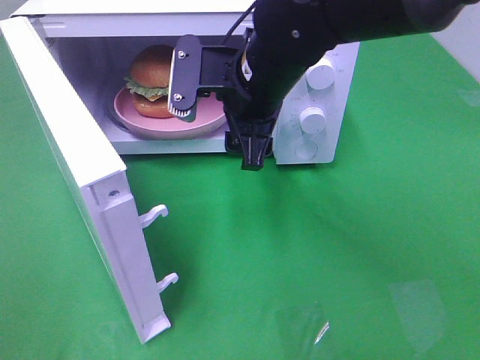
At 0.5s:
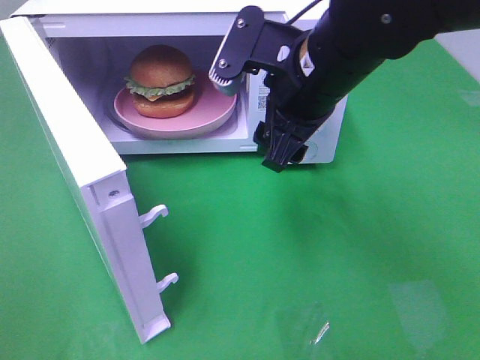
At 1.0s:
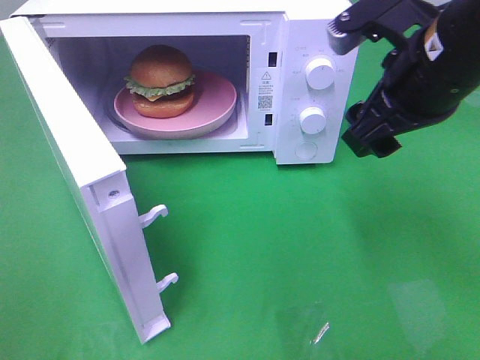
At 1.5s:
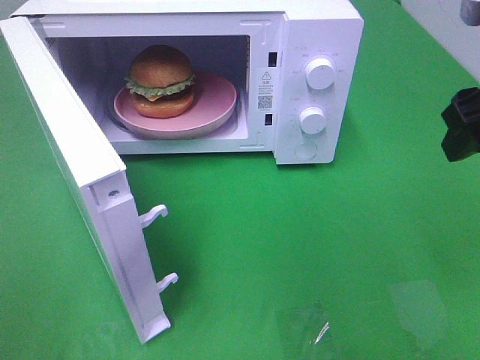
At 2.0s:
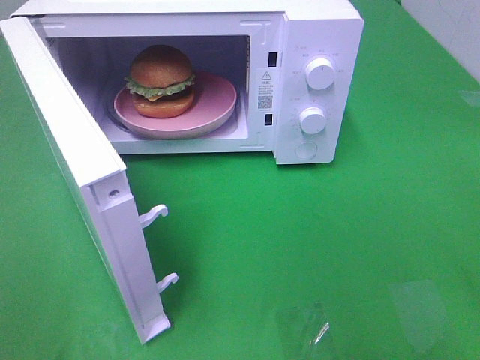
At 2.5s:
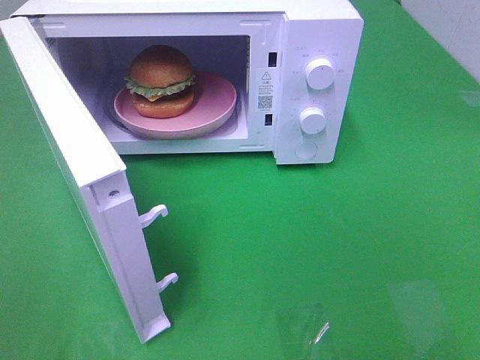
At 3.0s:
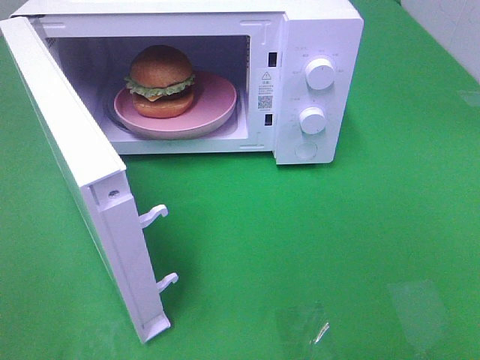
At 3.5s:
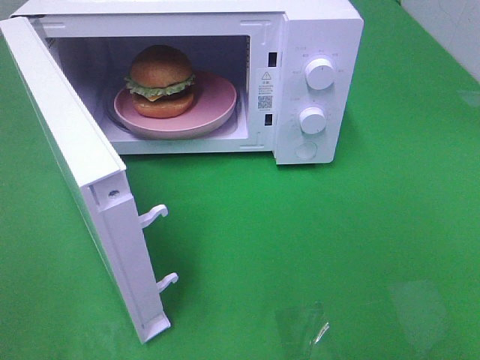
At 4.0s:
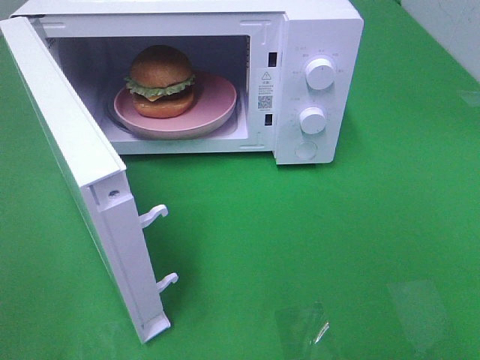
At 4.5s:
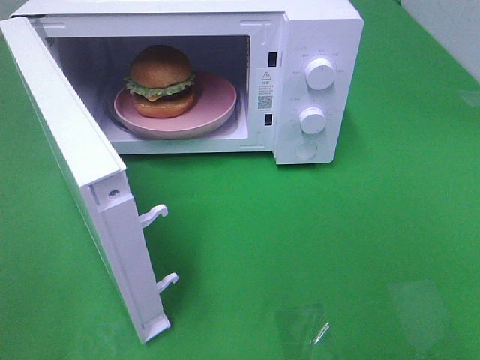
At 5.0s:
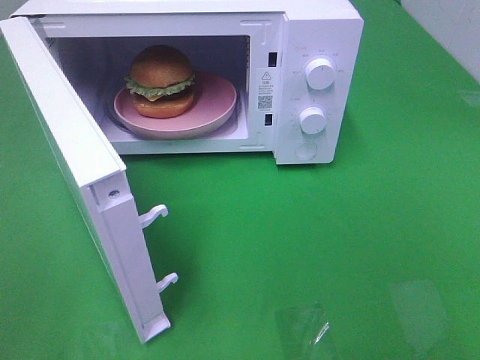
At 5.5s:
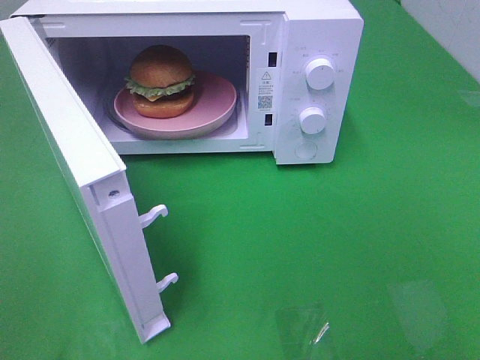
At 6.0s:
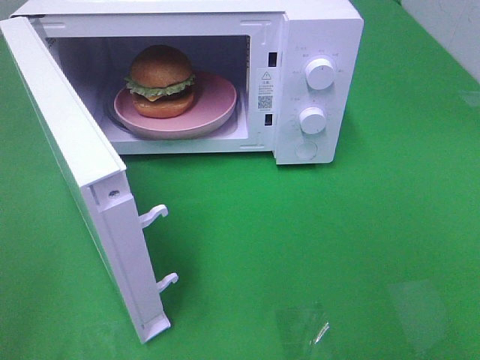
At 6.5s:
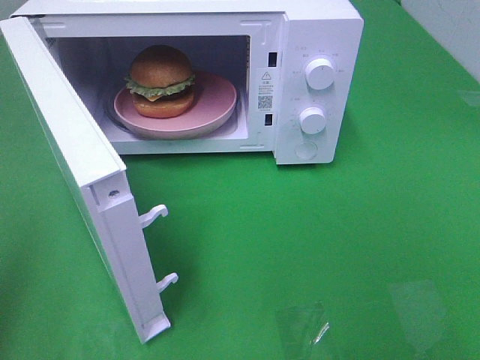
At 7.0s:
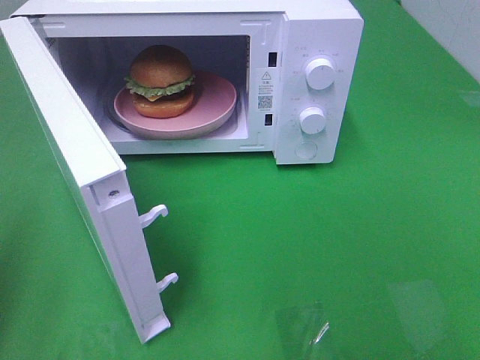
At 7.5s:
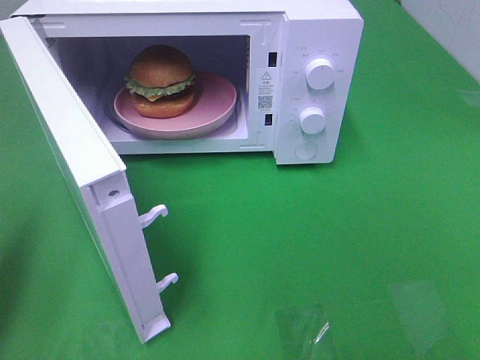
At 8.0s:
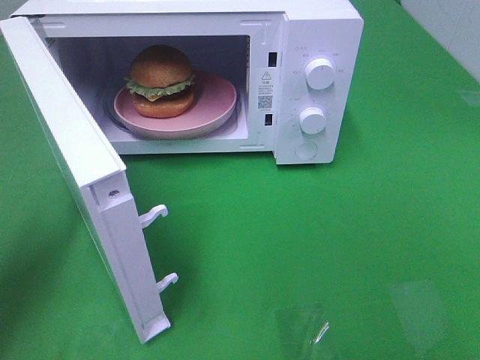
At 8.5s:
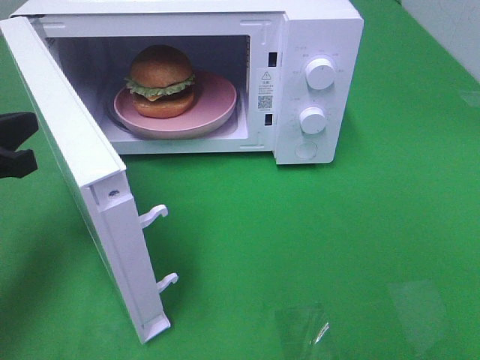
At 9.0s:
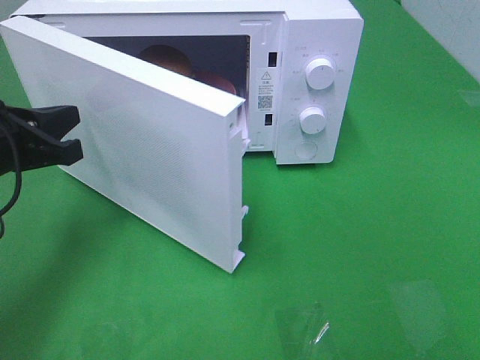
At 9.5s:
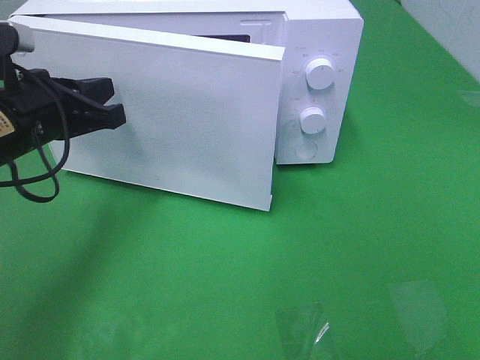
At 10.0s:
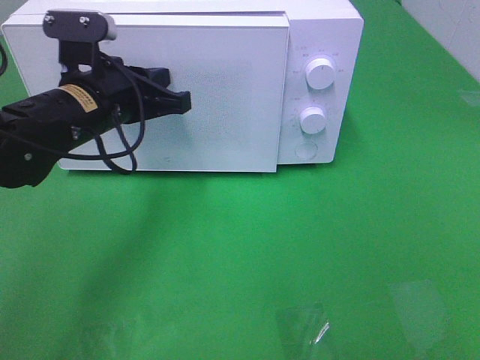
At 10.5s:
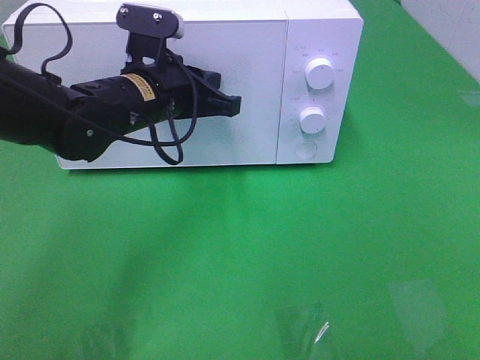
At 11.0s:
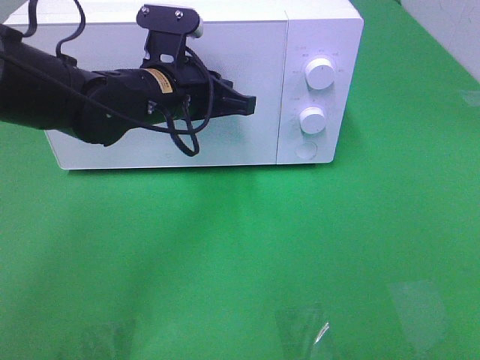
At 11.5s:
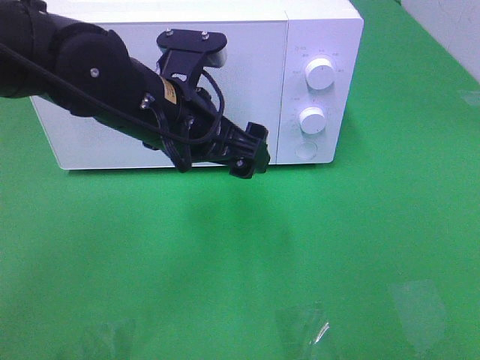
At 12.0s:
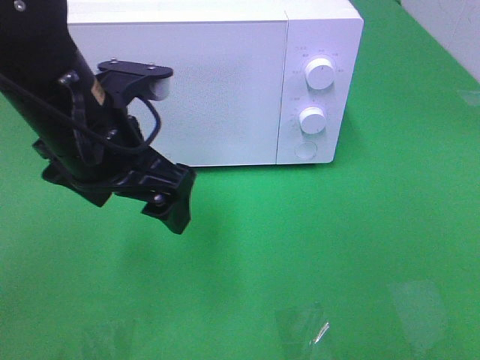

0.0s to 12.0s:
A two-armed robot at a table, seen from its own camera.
Task of the whole recording: Heat the burger.
Step, 0.0s to 11.0s: Left hand: close the microwave door.
0.0s to 2.0s: The right gripper moves to the right and backward, roughly 30 cm.
6.0s to 8.0s: The left gripper goes about 20 cm forward and downward, and closes.
8.0s to 10.0s: The left gripper shifts about 20 cm to the right and forward.
10.0s to 12.0s: The left gripper shifts approximately 10 cm backward, and opens.

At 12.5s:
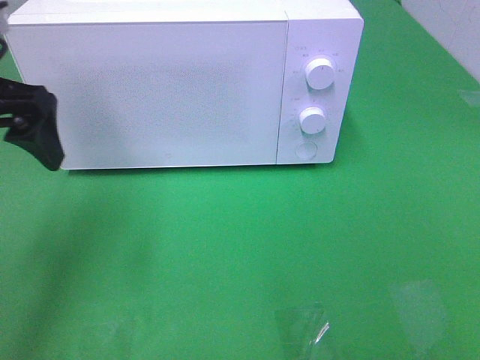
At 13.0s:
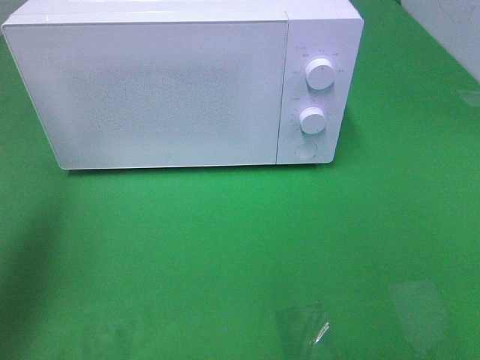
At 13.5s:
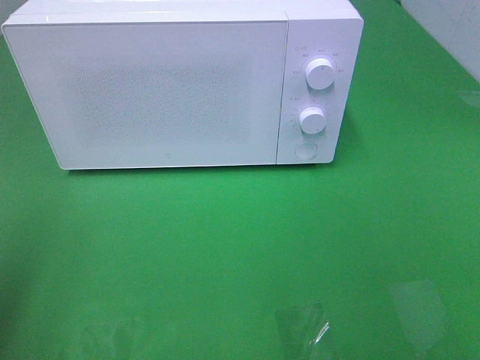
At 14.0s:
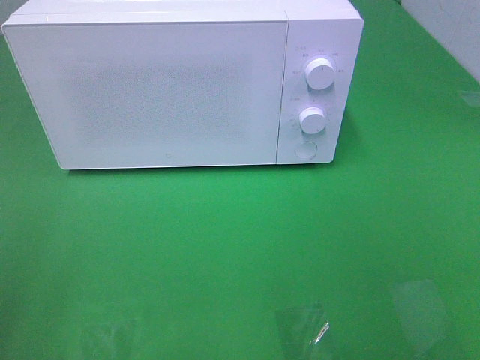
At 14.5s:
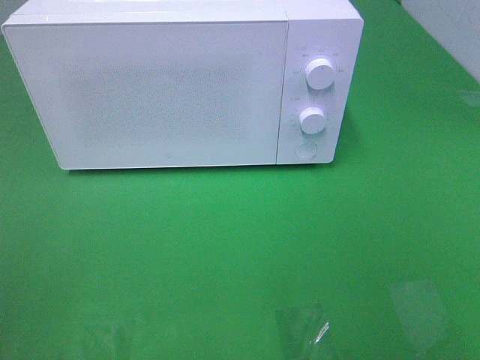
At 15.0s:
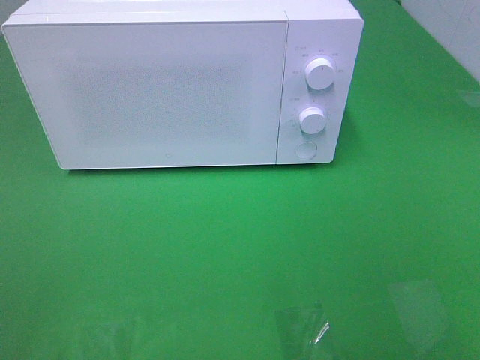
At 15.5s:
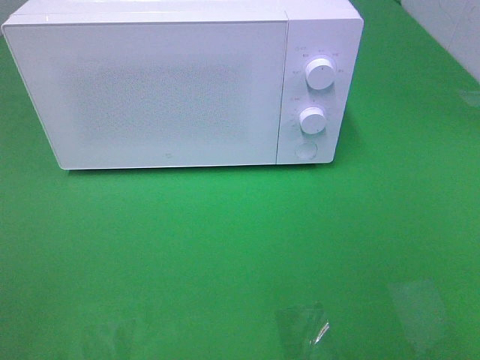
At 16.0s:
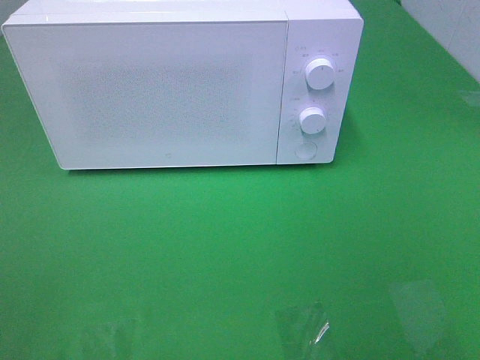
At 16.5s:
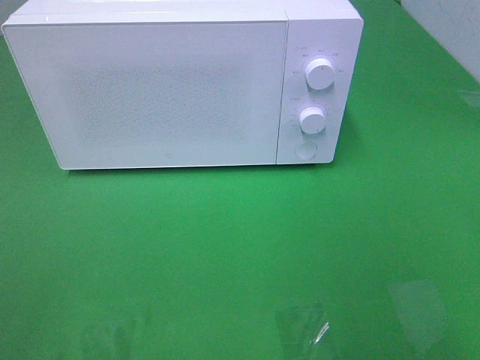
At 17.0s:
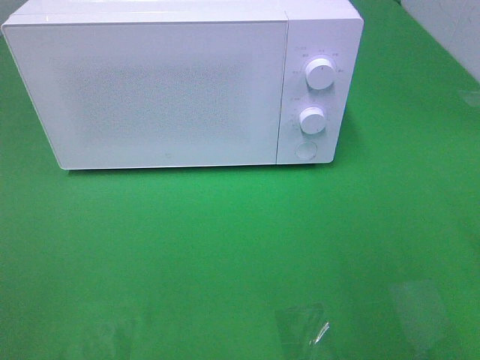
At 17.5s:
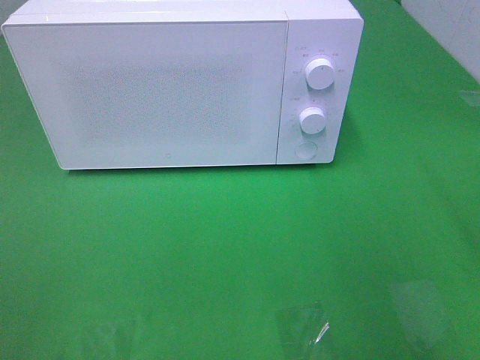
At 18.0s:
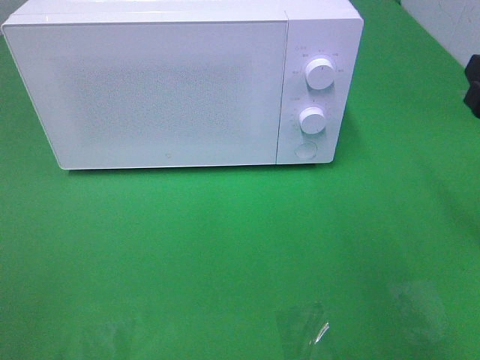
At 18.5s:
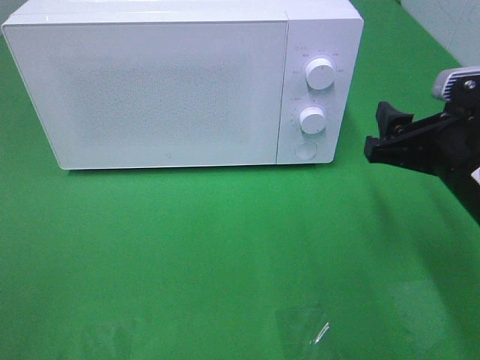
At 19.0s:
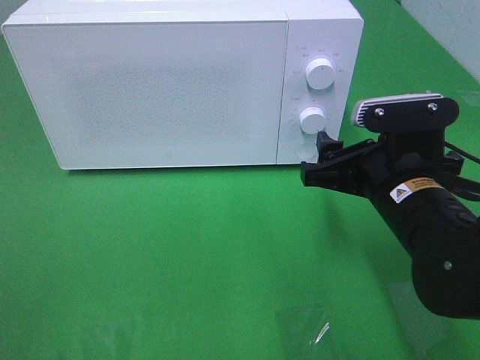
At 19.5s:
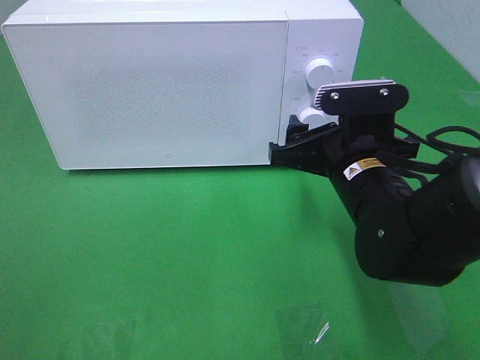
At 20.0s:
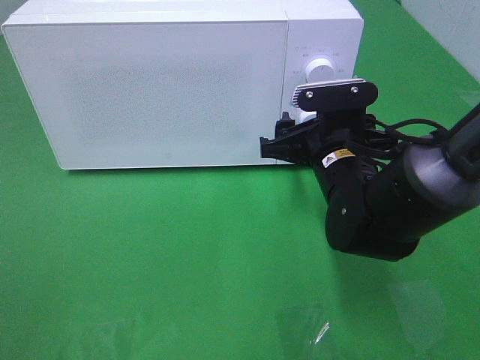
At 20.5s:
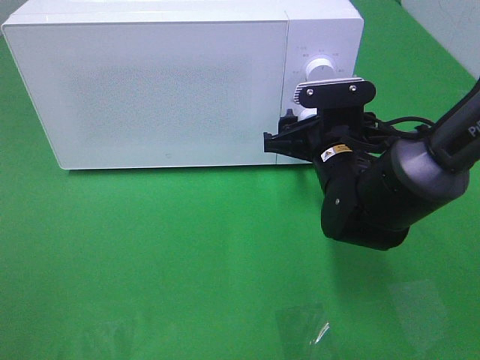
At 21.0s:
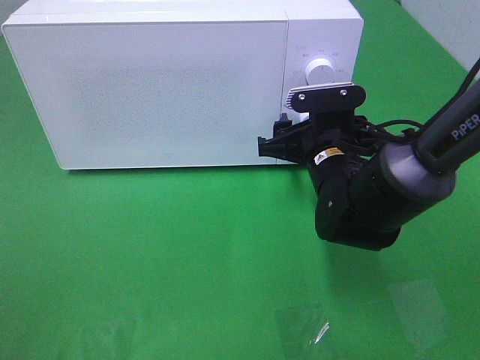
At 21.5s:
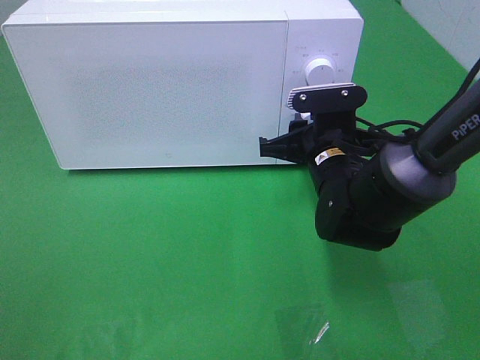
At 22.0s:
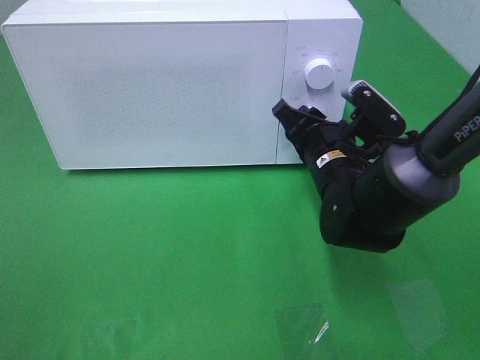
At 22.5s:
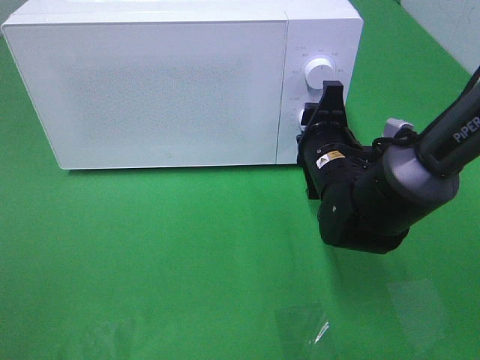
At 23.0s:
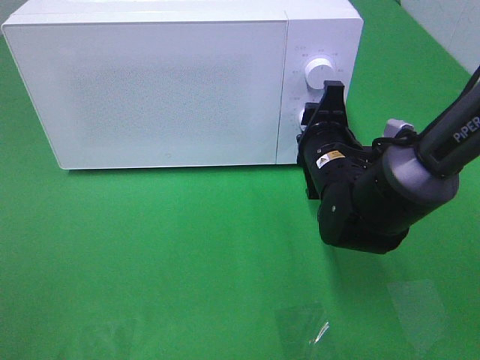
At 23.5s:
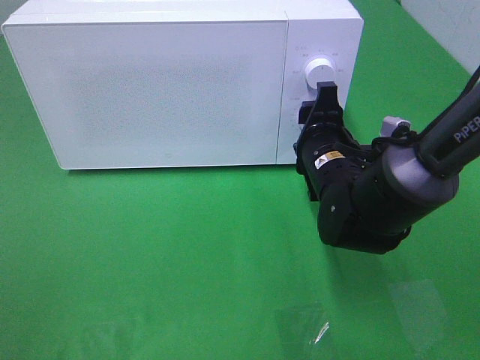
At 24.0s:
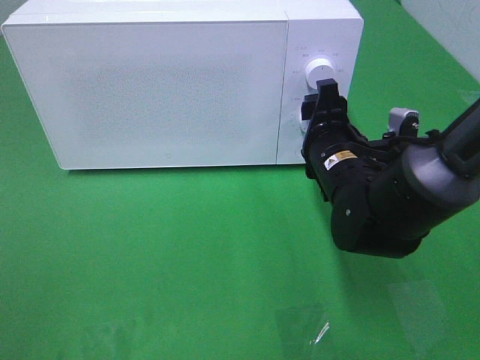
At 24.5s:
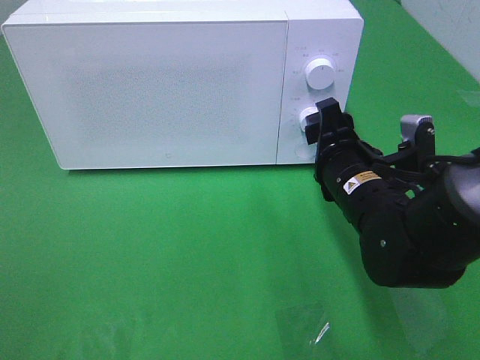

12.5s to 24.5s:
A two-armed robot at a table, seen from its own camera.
Task of the whole recording: Heat the burger.
Step, 12.5s to 23.0s: Right hand: twist timer button.
12.5s to 14.5s: The left gripper goes some 25 cm backward.
16.5s to 18.5s: The right gripper travels forward, downward and to the left by about 20 cm.
18.5s to 20.5s: The right gripper moves forward, to the left and downward, some 15 cm.
20.5s to 22.5s: The right gripper closes its fingers.
22.5s to 24.5s: The right gripper shifts about 5 cm backward.

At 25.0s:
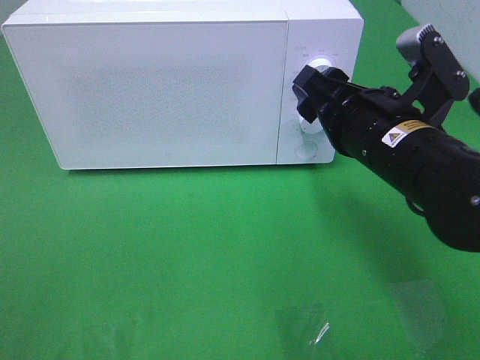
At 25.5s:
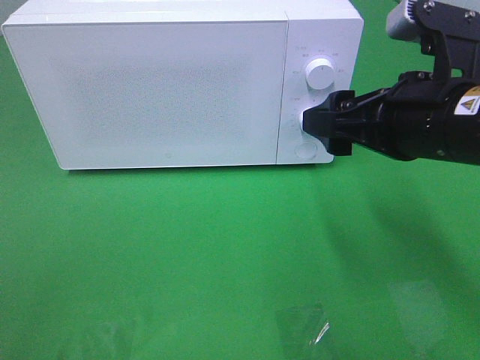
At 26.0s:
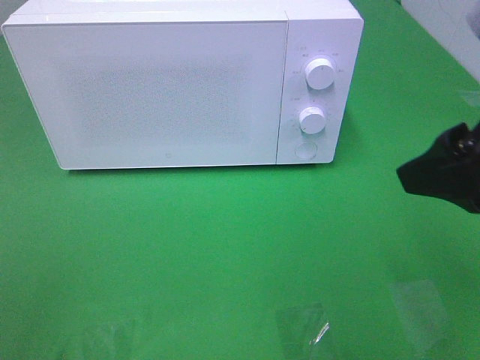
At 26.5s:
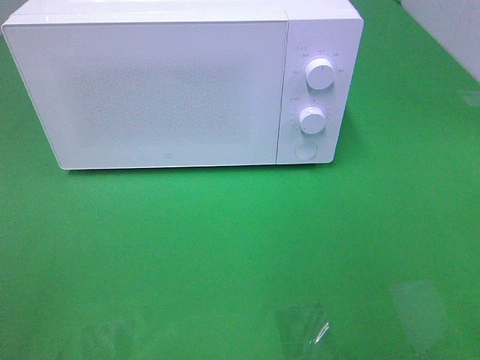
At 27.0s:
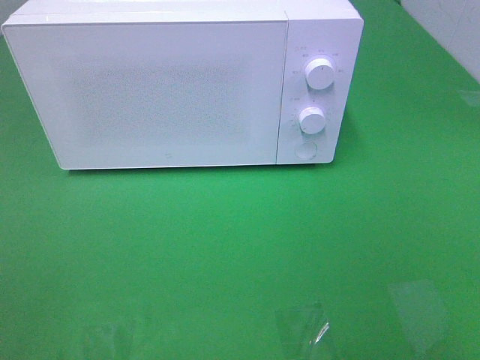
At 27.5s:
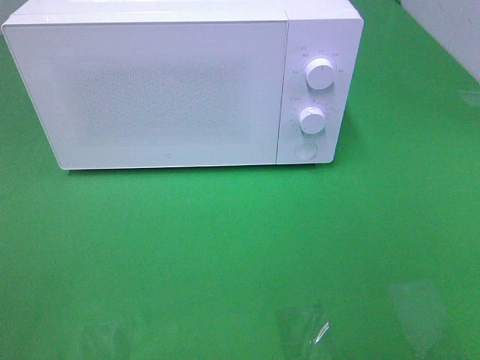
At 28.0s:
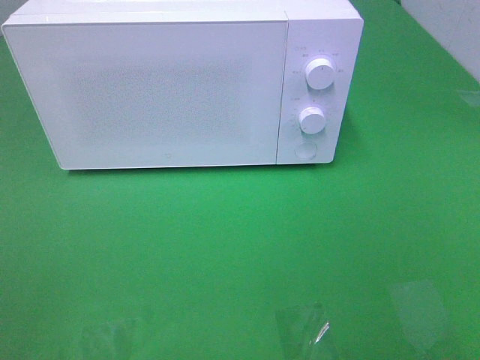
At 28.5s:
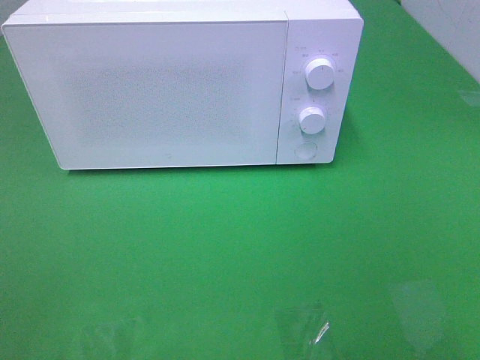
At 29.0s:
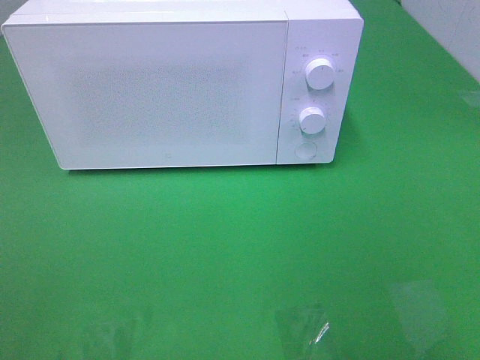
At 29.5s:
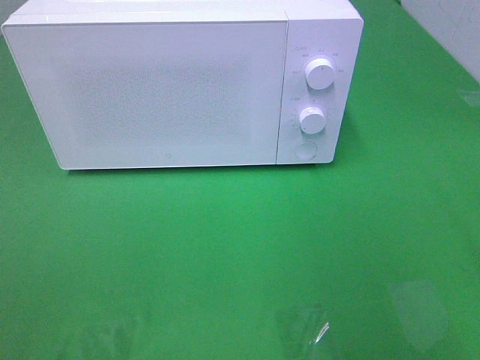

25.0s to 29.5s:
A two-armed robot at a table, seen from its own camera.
Task of the whole recording: Heat the burger.
25.0s to 27.0s: The right gripper shifts some 30 cm backward, to the right and upward.
